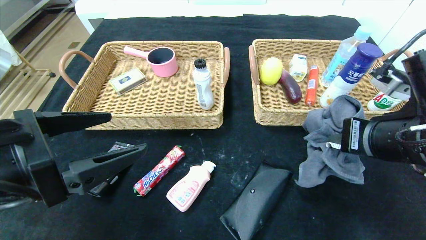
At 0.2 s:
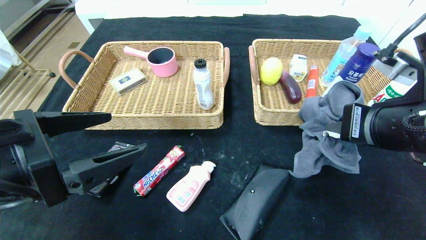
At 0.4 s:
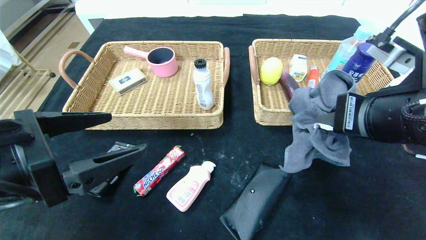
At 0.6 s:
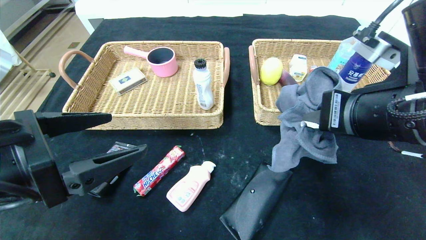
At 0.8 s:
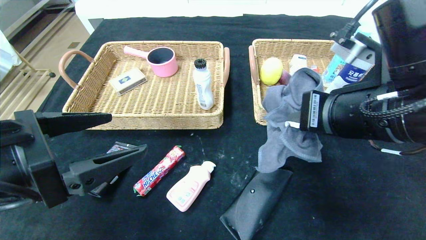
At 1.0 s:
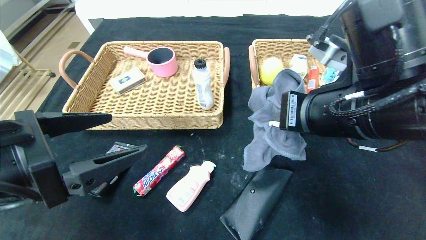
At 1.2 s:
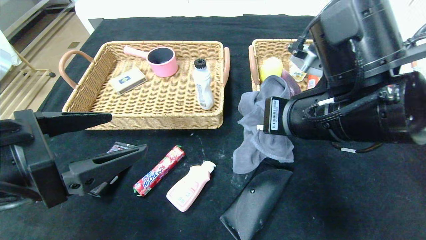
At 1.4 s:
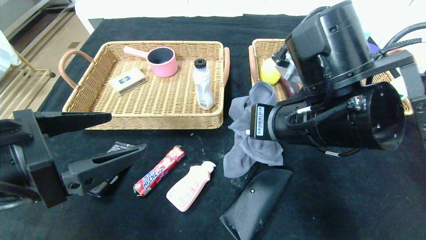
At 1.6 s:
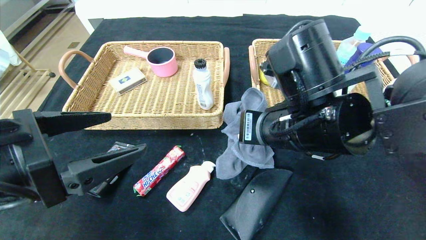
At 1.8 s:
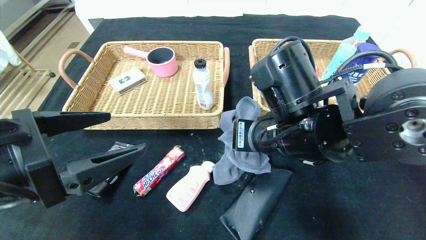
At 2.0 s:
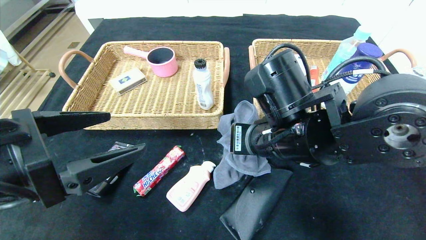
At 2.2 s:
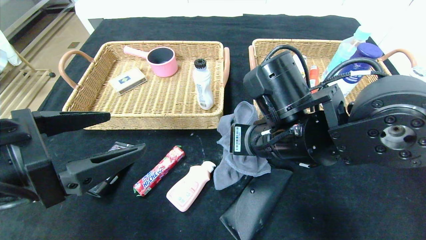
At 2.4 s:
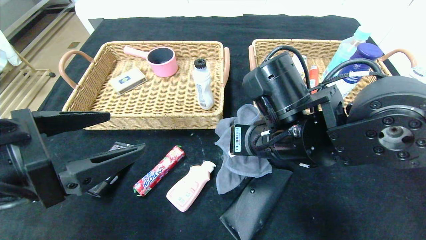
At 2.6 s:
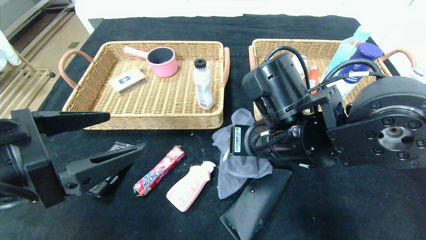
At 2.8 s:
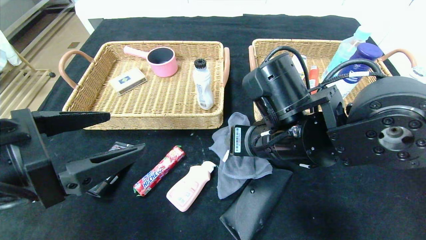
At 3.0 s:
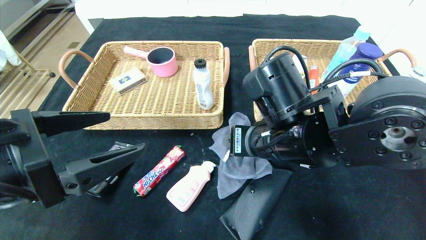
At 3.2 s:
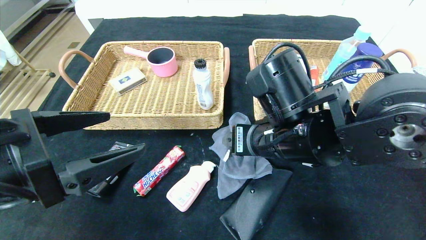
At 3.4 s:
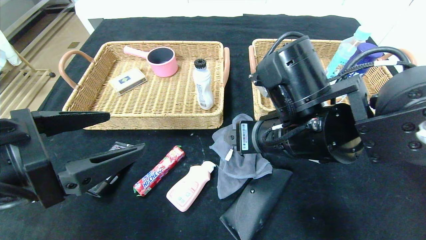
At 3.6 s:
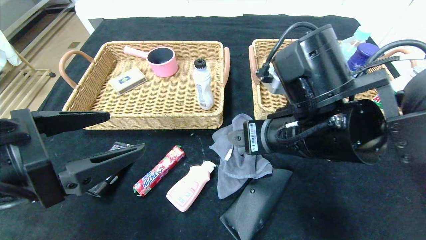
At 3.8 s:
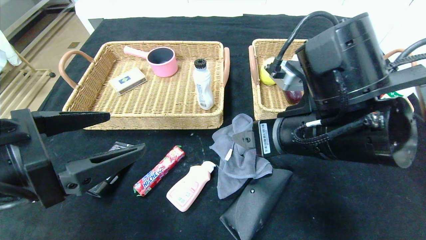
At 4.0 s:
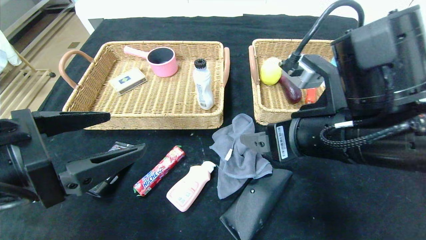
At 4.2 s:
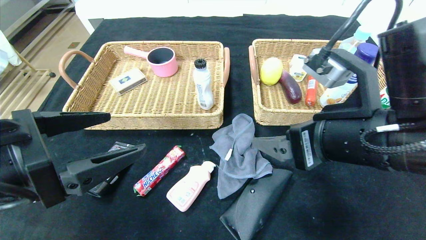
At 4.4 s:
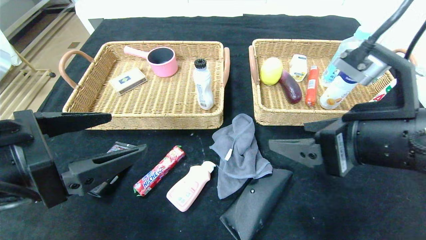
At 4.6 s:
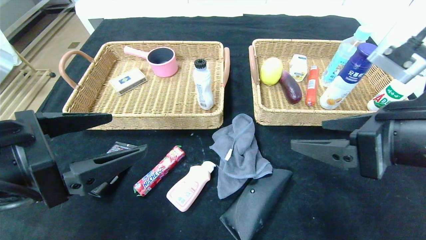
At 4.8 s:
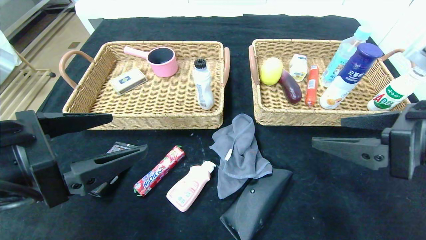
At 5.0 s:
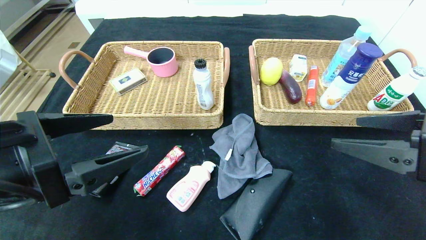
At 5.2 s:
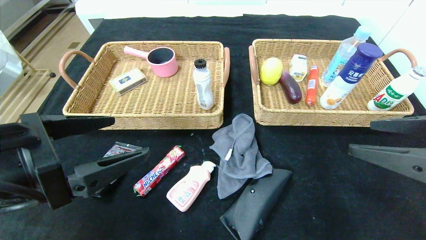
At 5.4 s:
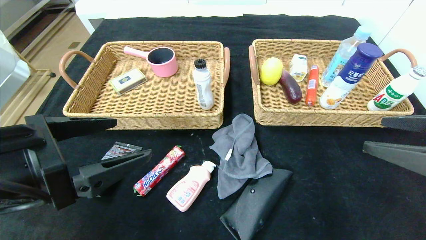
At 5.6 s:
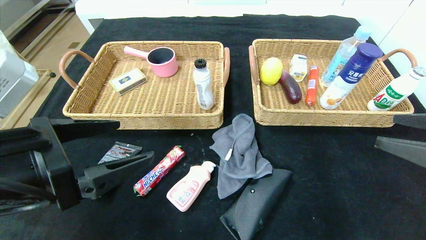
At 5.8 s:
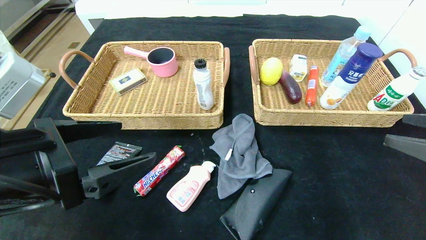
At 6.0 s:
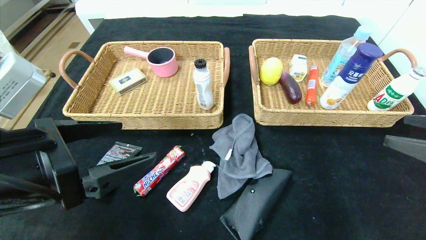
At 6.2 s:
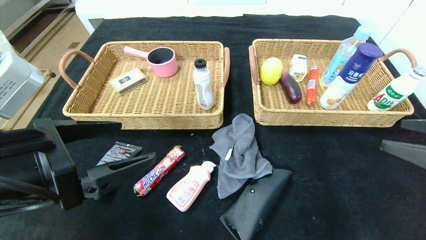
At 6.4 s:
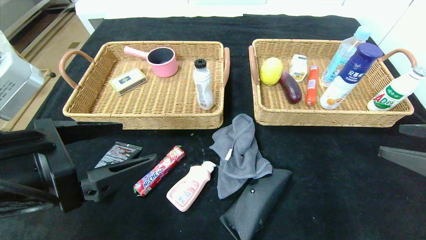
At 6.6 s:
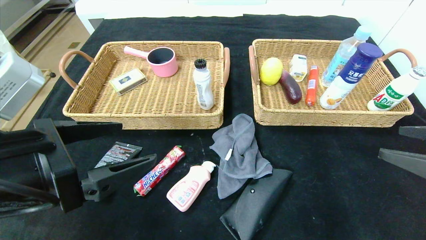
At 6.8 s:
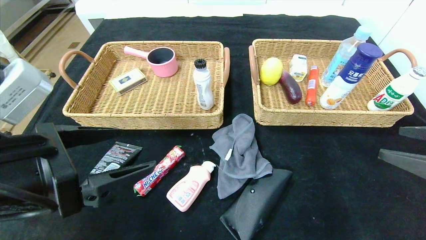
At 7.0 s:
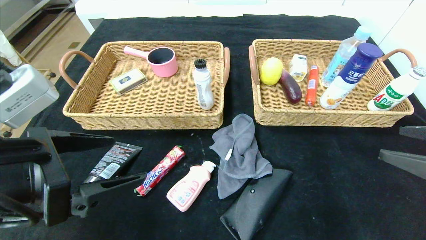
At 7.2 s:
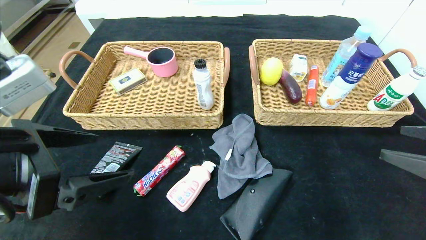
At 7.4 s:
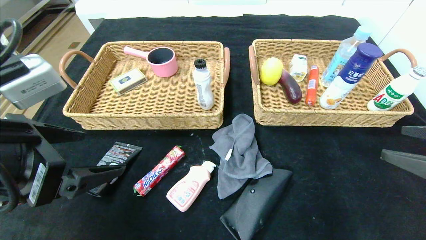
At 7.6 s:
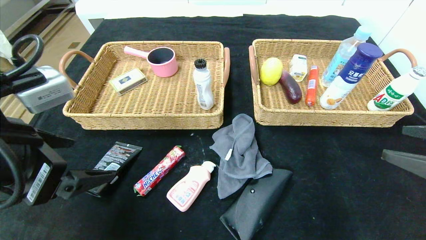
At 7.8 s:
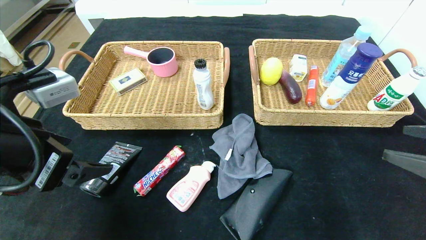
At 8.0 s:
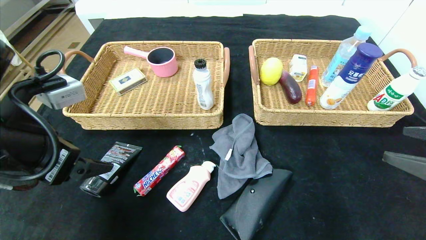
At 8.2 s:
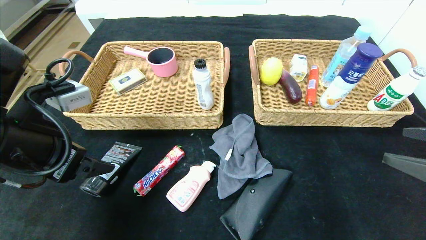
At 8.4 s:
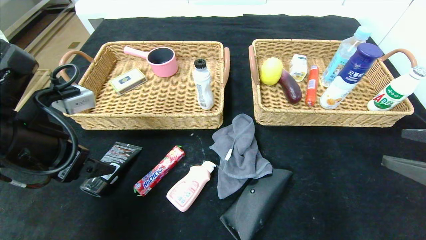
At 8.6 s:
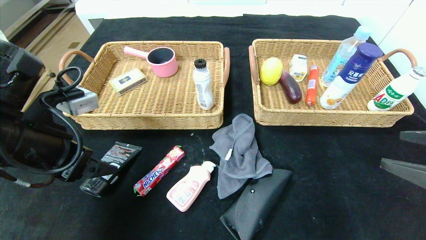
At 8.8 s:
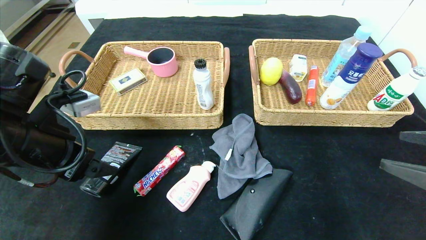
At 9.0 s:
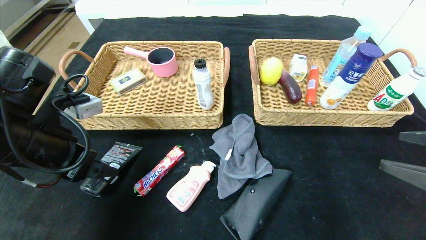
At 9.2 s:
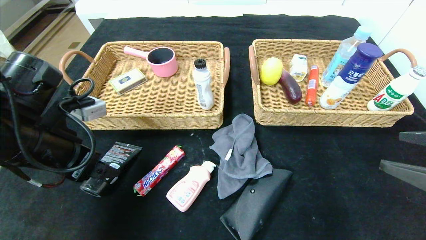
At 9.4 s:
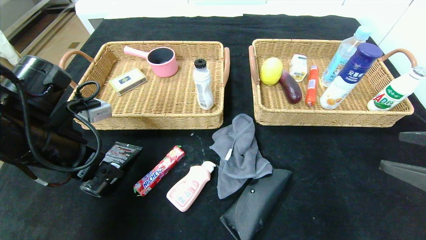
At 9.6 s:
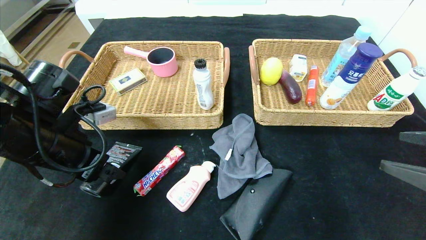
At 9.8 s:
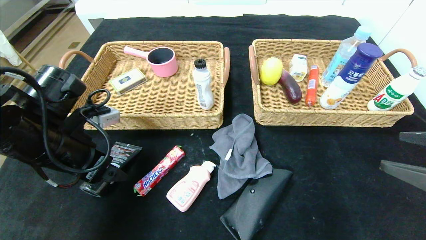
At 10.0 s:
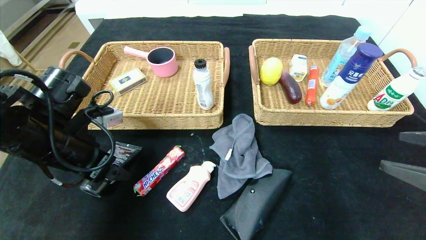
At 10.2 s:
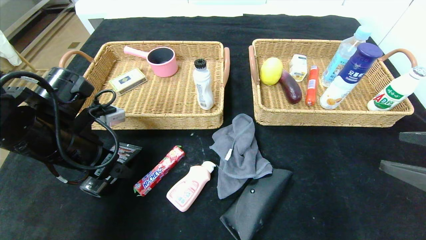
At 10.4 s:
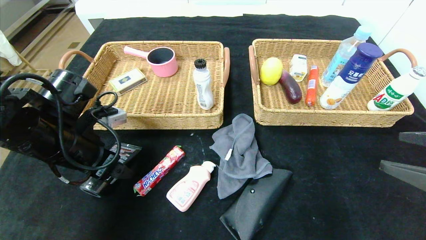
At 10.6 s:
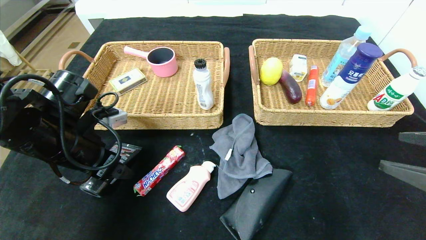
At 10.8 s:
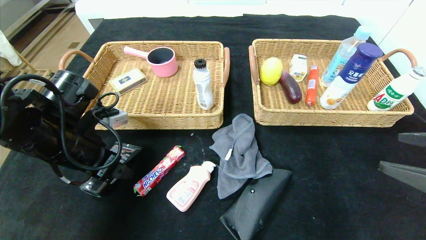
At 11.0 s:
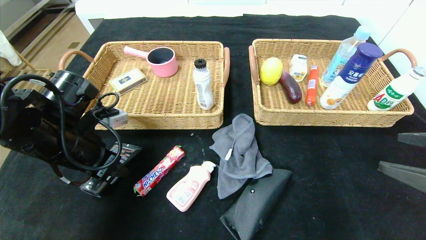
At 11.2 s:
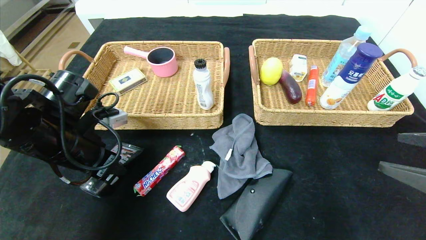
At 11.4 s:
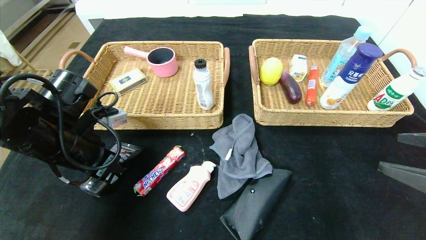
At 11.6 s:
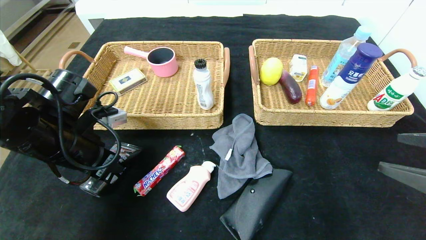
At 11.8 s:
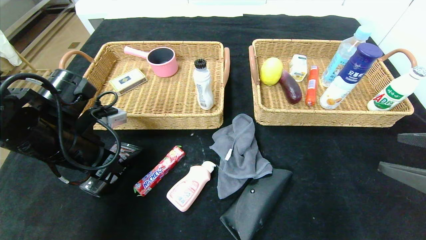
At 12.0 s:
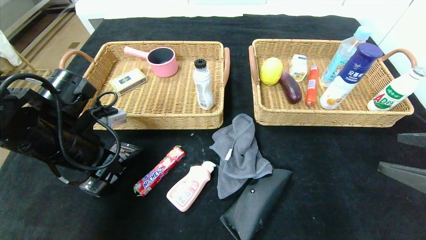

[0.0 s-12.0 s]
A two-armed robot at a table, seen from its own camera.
Step, 0.0 to 3.2 s: Place the gray towel in the center of the table.
0.0 to 1.6 s: The right gripper moves to the left, some 15 cm.
1.6 to 3.0 s: The right gripper opens up.
3.0 to 4.4 s: The right gripper is displaced to the right and backward by some 15 cm.
4.4 to 6.0 s: The right gripper is displaced to the right by some 15 cm.
7.6 to 9.0 s: The left gripper heads forward, covering some 5 cm.
9.0 to 10.4 s: The left gripper changes place by approximately 5 cm.

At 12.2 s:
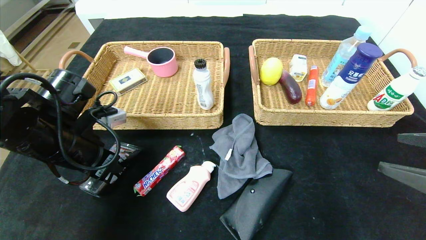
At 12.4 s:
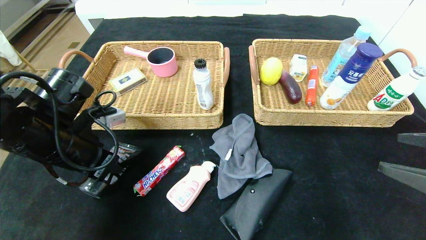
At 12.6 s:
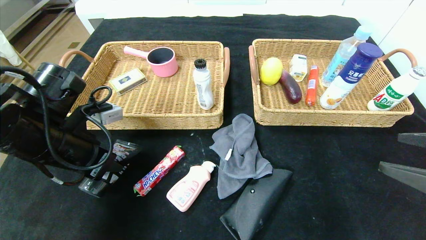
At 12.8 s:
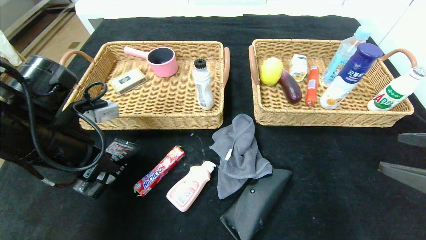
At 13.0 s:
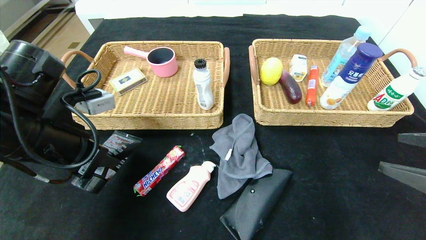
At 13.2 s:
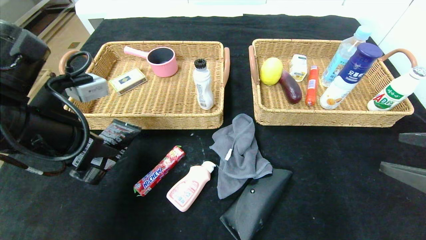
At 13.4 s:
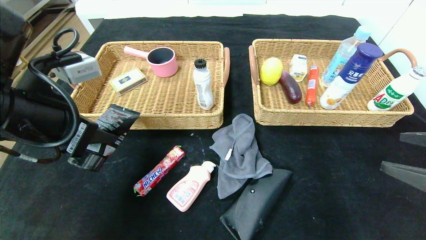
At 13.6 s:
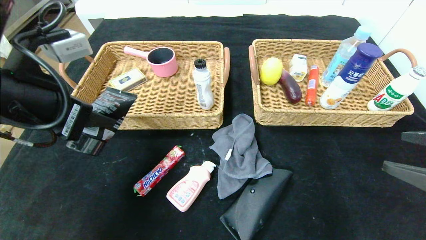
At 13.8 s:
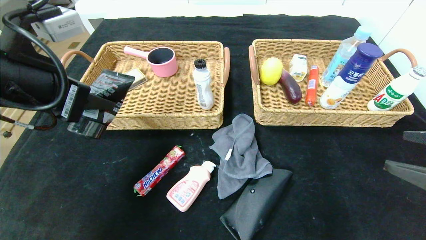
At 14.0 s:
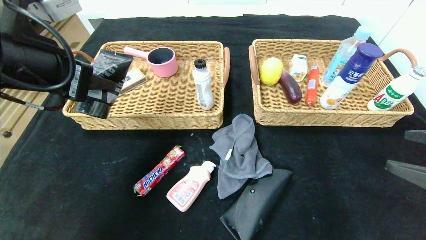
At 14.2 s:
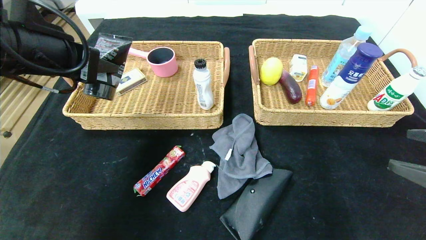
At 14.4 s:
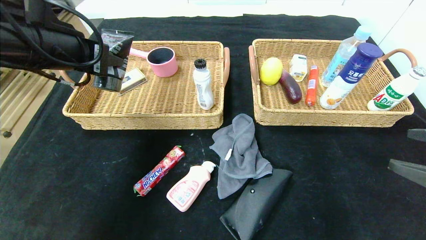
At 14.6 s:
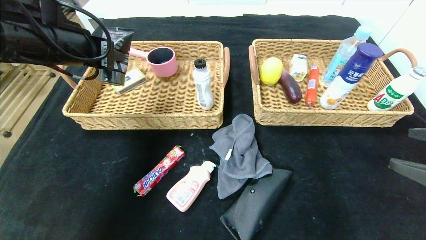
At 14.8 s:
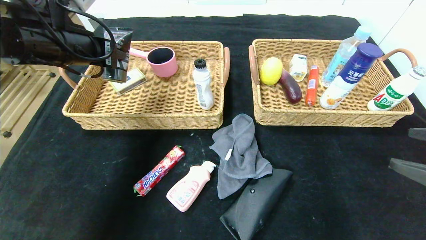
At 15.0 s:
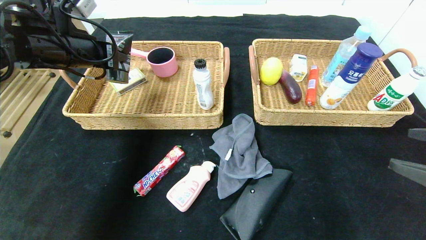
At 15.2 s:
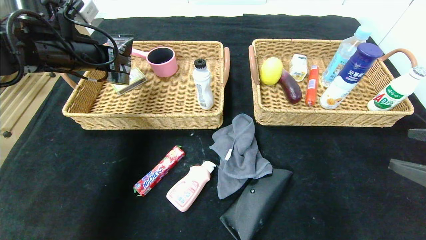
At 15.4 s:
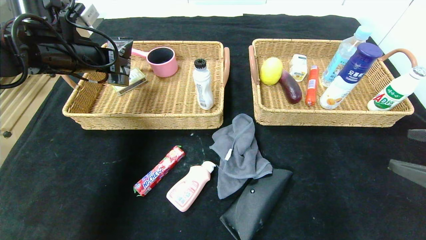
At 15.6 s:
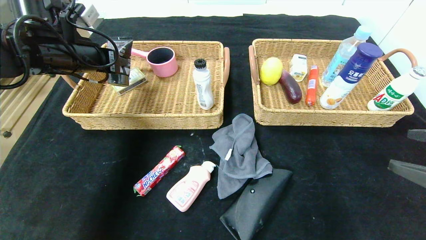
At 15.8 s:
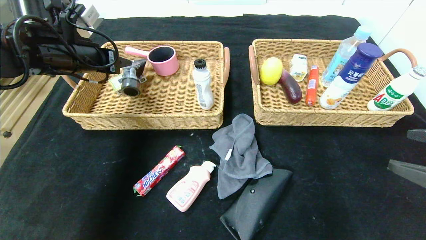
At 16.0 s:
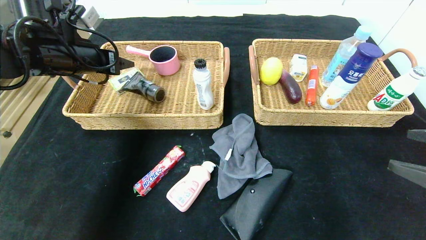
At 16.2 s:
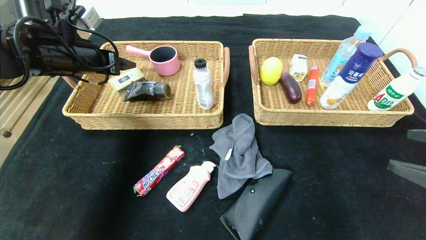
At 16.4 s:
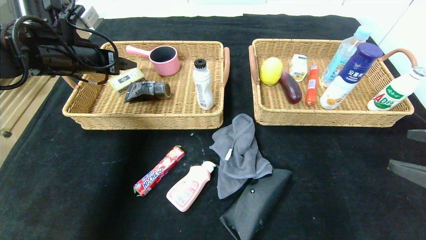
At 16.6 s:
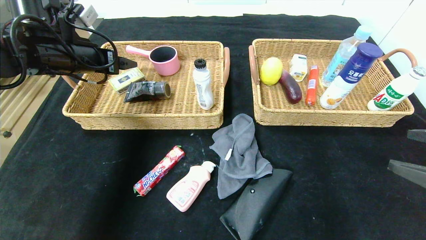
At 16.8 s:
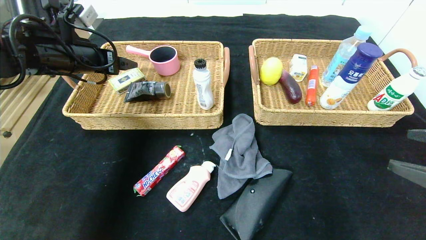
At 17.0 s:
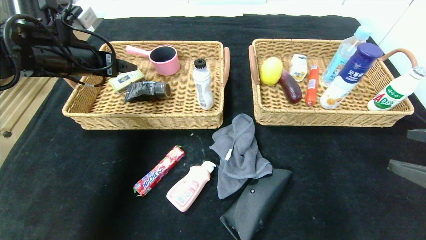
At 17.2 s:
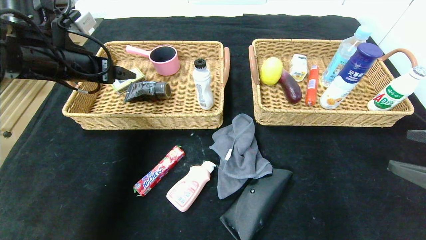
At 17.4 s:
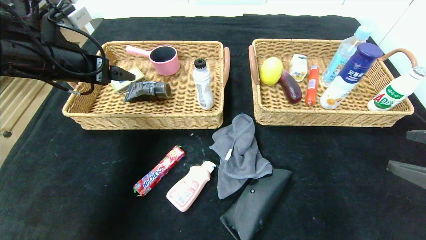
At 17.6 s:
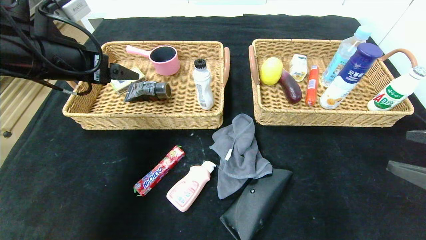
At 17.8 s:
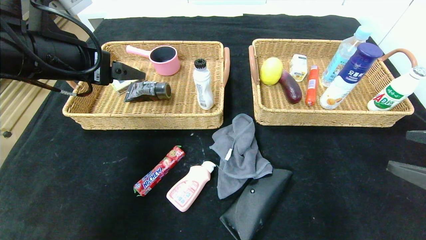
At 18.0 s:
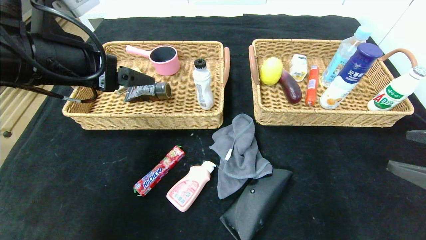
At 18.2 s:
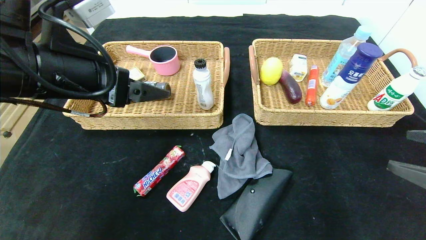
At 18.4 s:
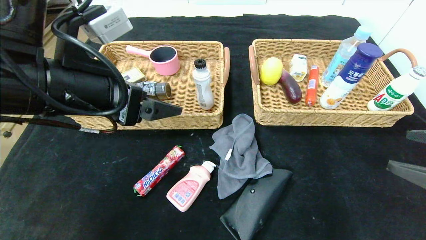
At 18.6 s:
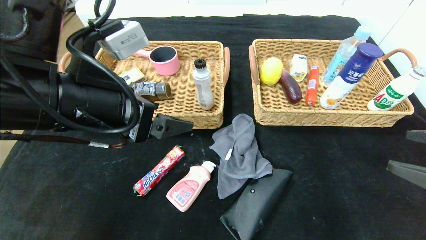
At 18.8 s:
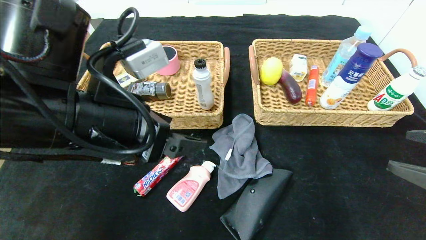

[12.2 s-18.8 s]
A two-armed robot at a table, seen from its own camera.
Step, 12.2 to 16.2 s: Grasp the soft cleanser and put it in the left basket.
12.2 to 13.8 s: The left gripper heads upward, covering about 10 cm.
13.8 to 15.4 s: The left gripper moves forward, some 15 cm.
15.4 to 17.2 s: The left gripper opens up.
17.2 to 18.8 s: The left gripper travels backward and to the right by roughly 20 cm.
